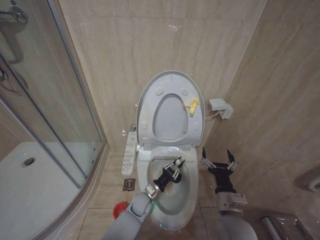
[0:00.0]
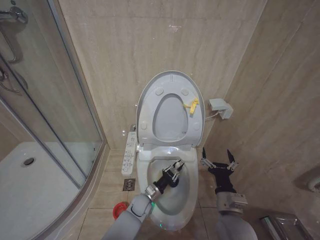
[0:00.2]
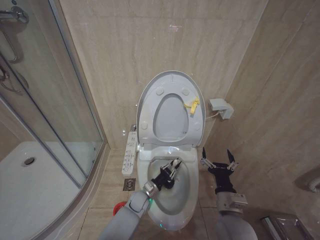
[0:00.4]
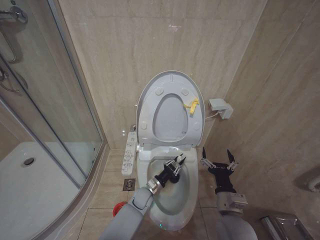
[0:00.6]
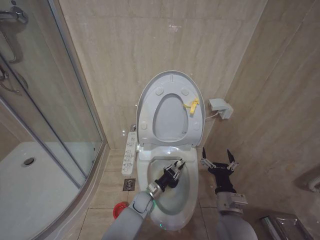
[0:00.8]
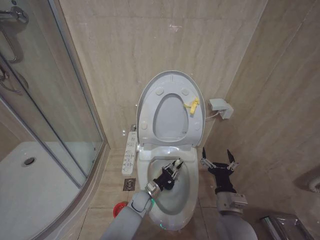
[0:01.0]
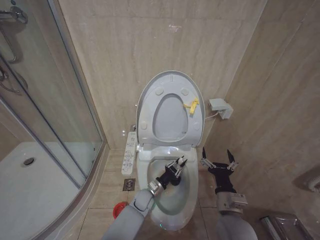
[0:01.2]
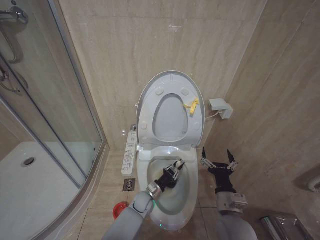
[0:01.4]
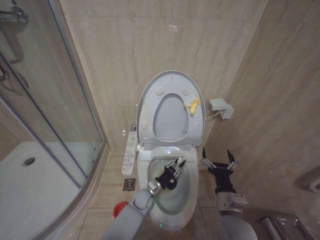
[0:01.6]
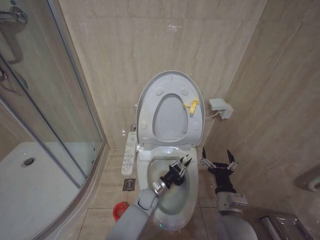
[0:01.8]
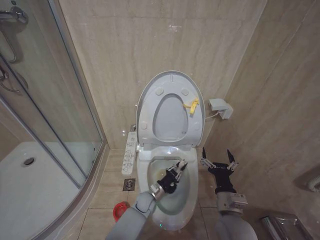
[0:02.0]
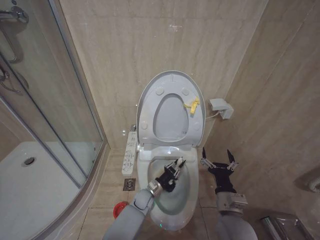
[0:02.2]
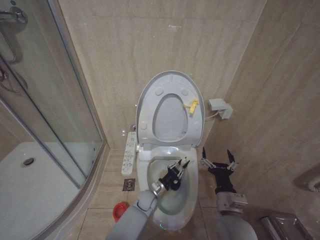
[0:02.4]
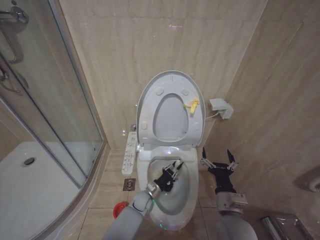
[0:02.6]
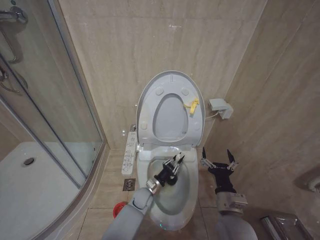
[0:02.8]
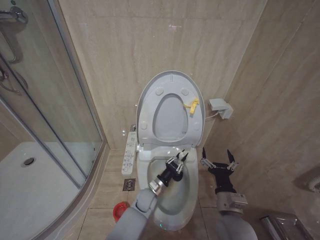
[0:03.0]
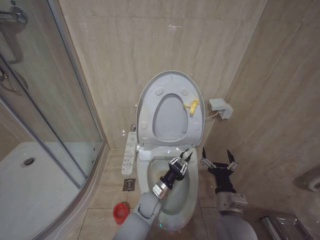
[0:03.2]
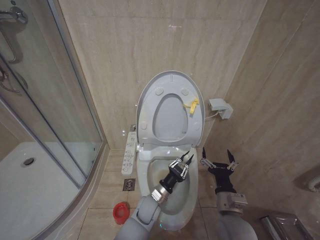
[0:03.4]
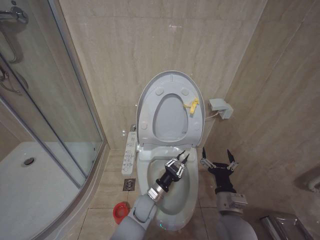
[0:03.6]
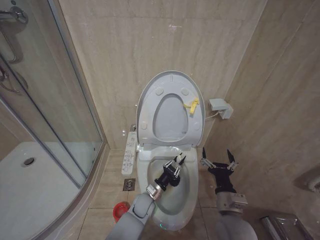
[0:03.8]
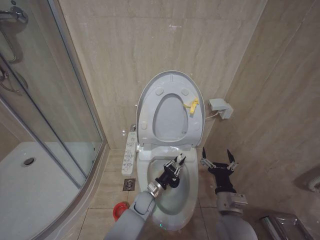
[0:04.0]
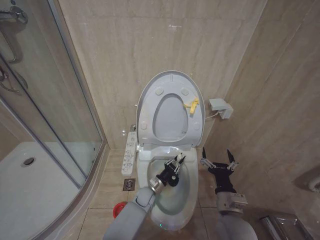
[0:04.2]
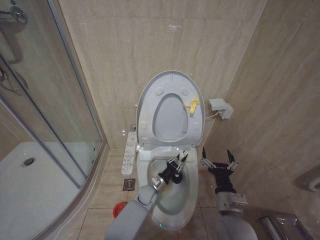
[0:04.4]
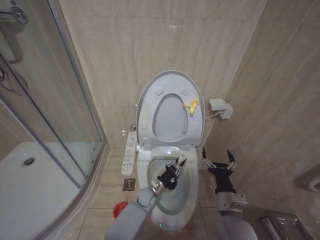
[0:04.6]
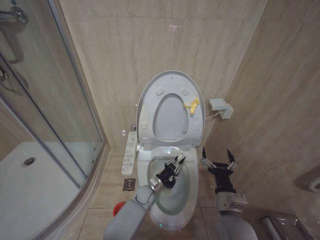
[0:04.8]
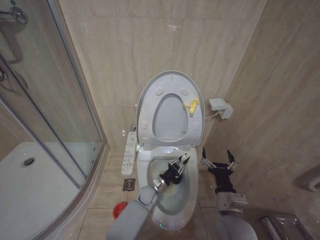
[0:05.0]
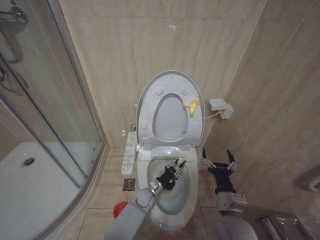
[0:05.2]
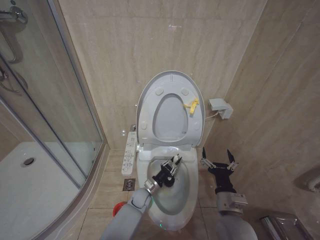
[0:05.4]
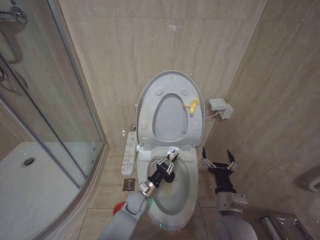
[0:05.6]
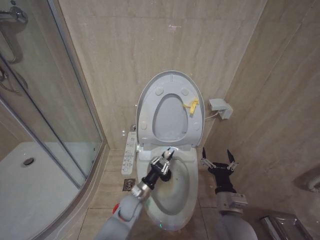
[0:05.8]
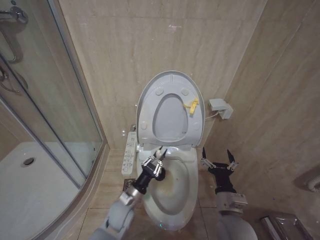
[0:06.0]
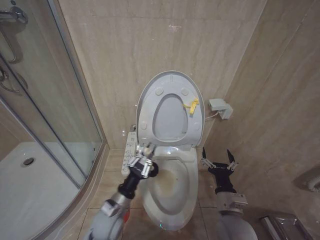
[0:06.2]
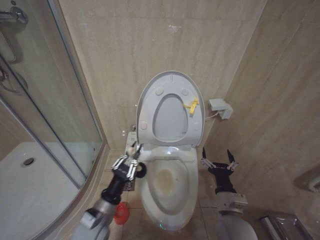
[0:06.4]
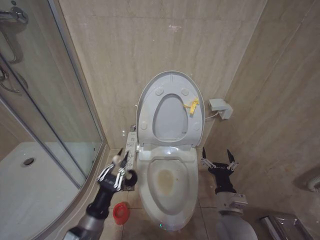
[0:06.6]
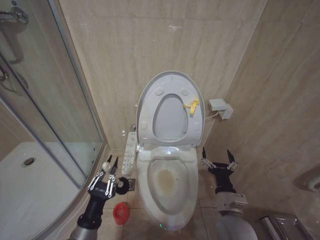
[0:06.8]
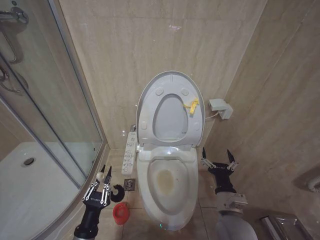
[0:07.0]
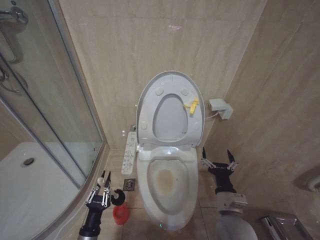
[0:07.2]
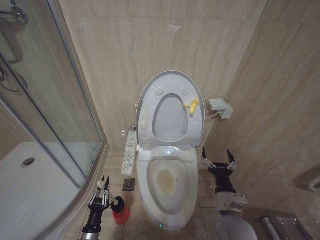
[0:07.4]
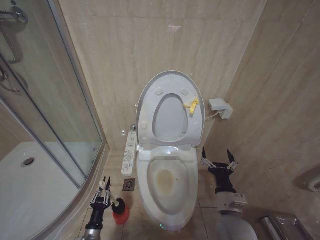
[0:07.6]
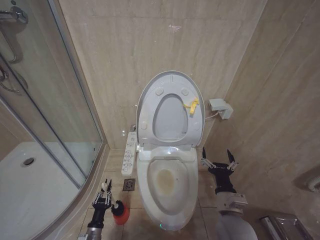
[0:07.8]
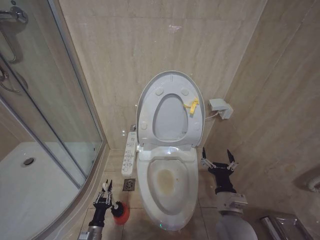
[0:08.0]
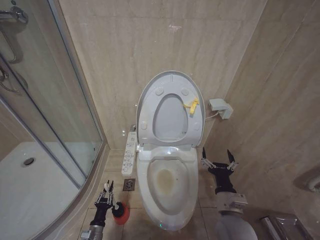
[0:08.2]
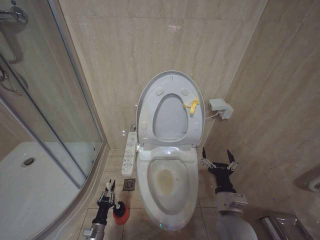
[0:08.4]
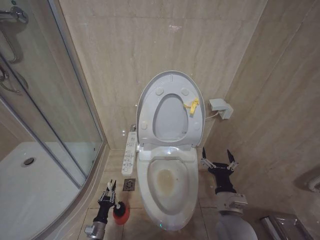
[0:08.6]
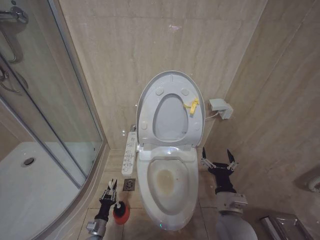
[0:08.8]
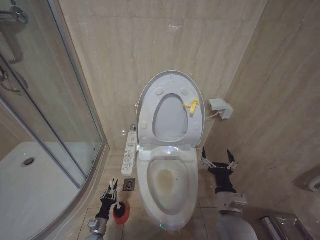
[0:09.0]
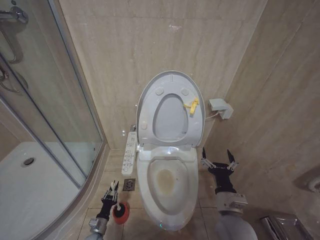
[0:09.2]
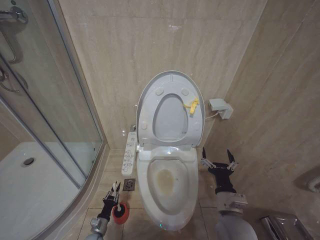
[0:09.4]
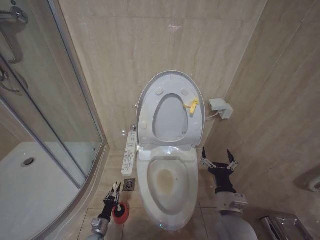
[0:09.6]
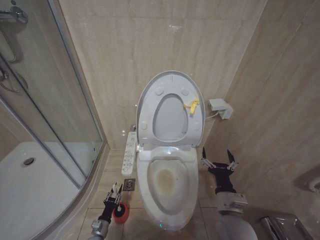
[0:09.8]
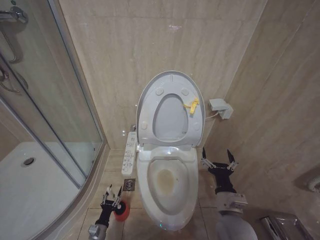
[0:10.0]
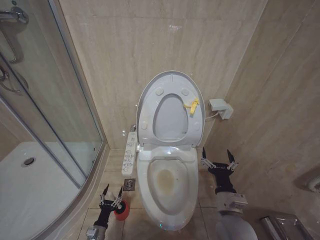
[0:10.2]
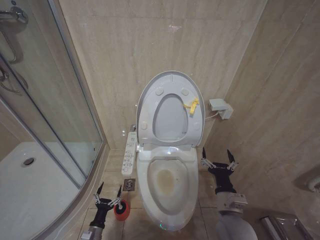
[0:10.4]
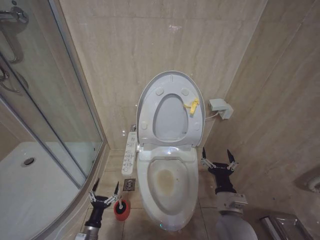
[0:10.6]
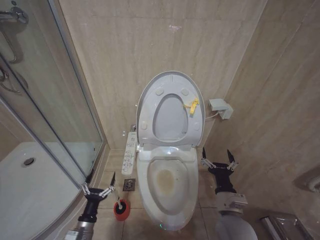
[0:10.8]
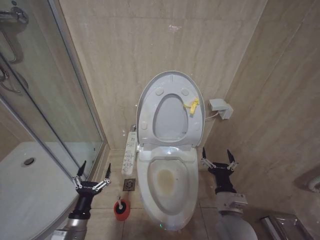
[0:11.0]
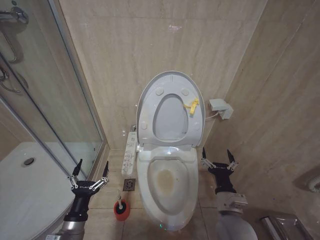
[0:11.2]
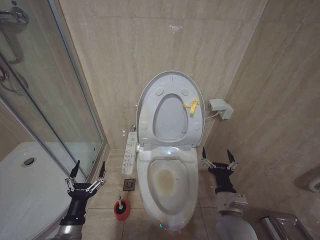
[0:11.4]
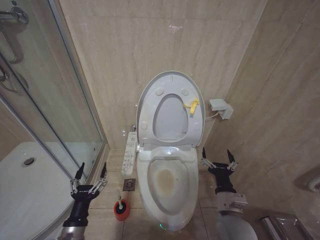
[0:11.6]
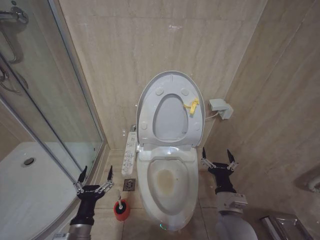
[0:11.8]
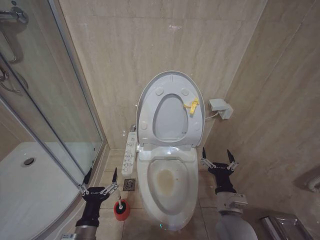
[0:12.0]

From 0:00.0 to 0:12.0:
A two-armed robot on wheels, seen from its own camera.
Task of the whole recording: Open the toilet lid, clean the toilet bowl with a toilet brush, close the toilet lid, and flush.
From 0:01.6 to 0:03.0: The left gripper moves some 5 cm.
From 0:04.4 to 0:06.0: The left gripper goes approximately 15 cm backward, to the left and upward.
From 0:06.0 to 0:07.6: The left gripper goes some 20 cm to the left, backward and downward.
From 0:07.6 to 0:09.0: The left gripper travels downward and forward by roughly 10 cm.
From 0:09.0 to 0:10.4: The left gripper opens.
From 0:10.4 to 0:12.0: The left gripper goes roughly 25 cm upward.

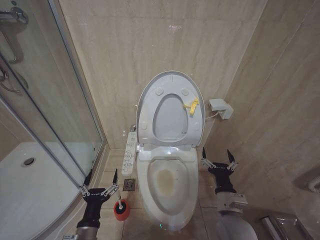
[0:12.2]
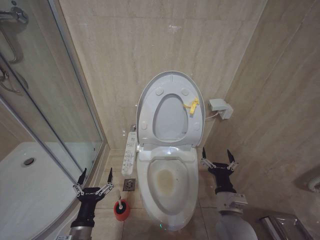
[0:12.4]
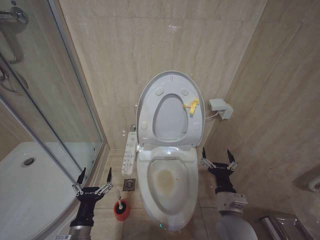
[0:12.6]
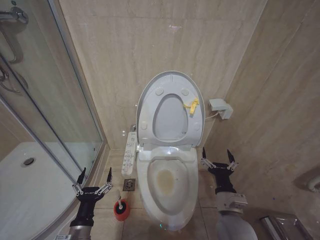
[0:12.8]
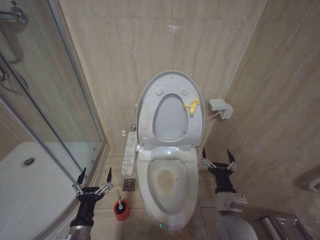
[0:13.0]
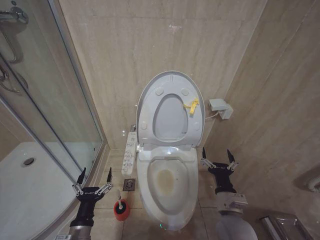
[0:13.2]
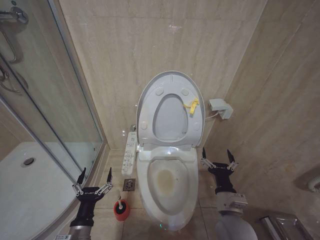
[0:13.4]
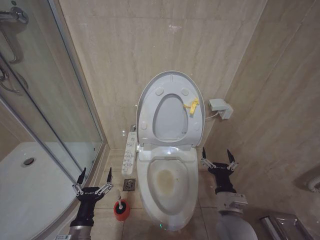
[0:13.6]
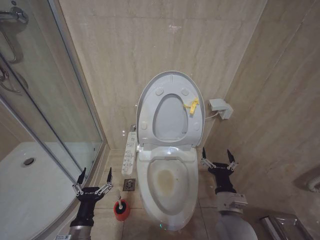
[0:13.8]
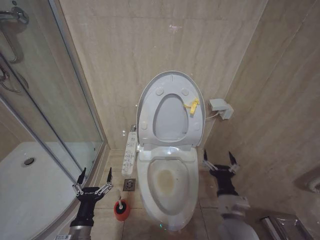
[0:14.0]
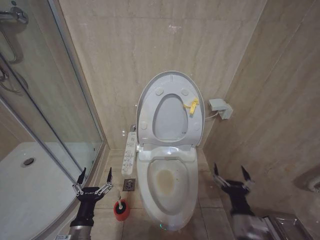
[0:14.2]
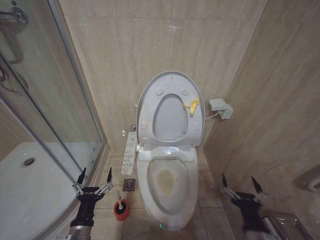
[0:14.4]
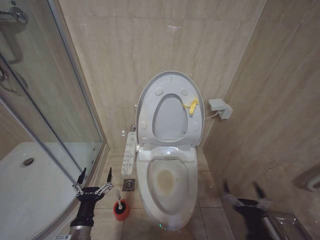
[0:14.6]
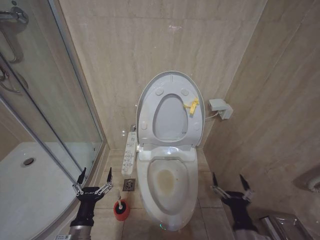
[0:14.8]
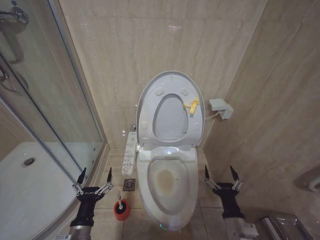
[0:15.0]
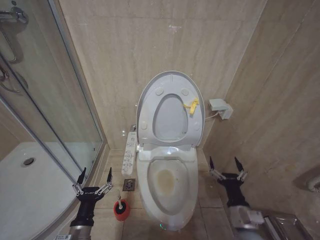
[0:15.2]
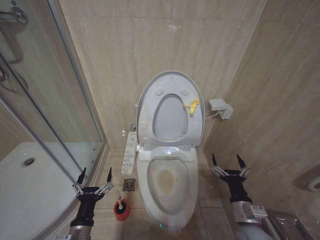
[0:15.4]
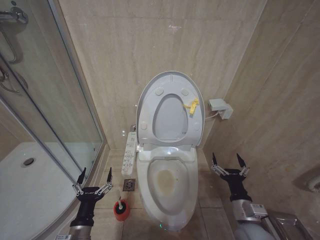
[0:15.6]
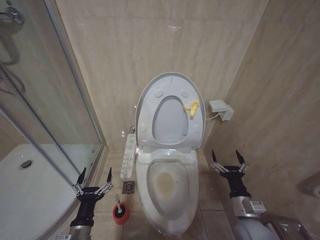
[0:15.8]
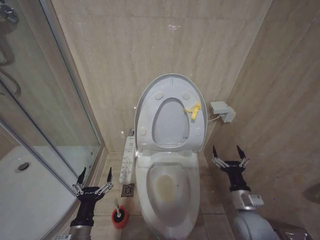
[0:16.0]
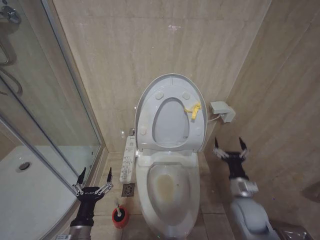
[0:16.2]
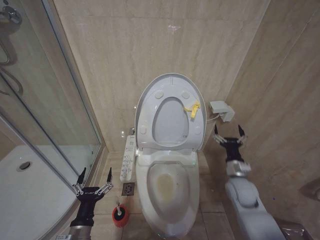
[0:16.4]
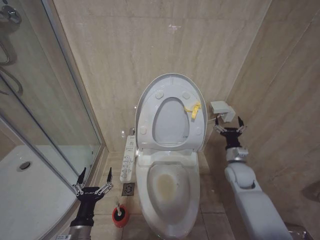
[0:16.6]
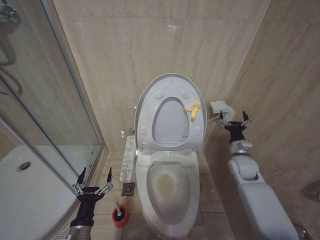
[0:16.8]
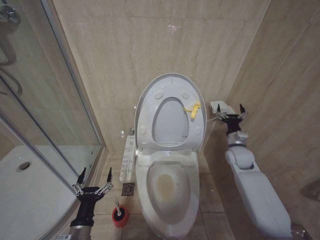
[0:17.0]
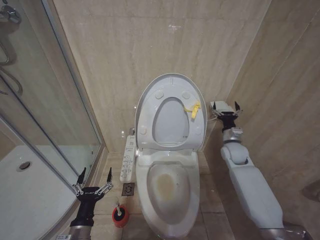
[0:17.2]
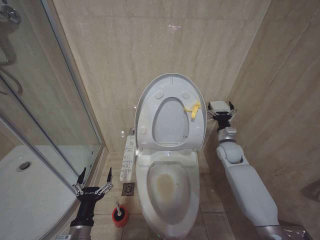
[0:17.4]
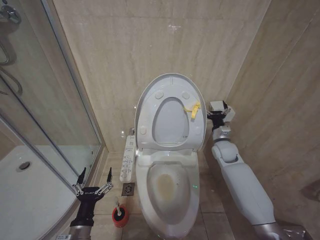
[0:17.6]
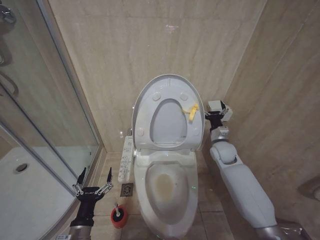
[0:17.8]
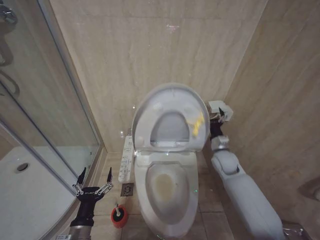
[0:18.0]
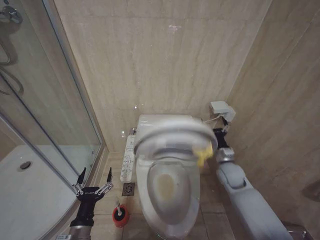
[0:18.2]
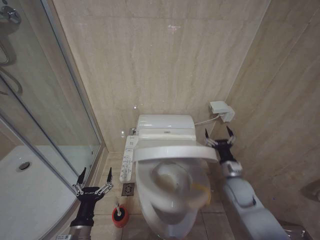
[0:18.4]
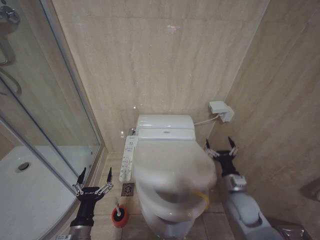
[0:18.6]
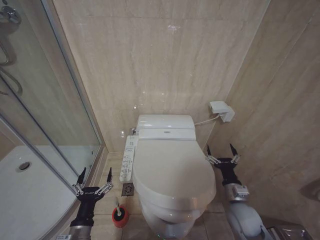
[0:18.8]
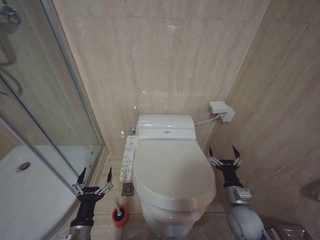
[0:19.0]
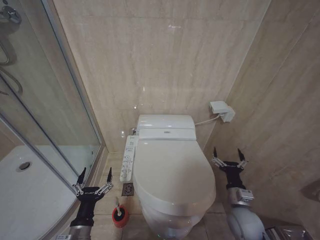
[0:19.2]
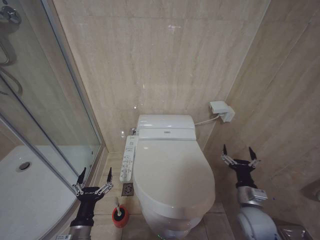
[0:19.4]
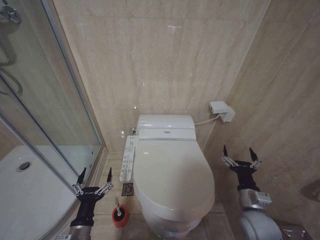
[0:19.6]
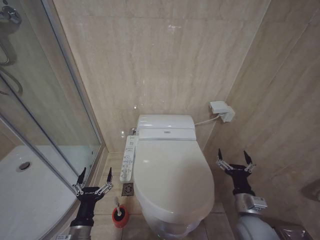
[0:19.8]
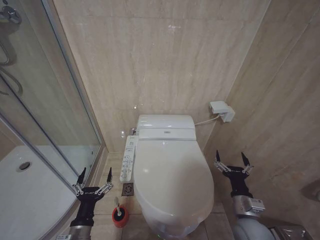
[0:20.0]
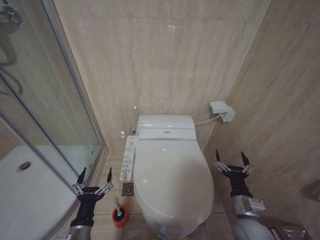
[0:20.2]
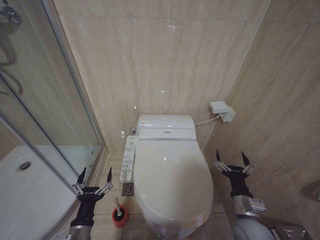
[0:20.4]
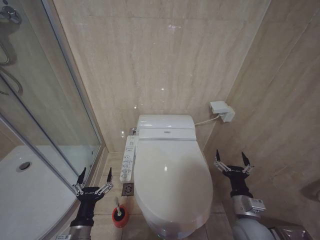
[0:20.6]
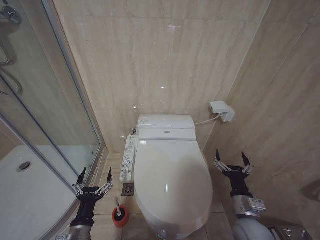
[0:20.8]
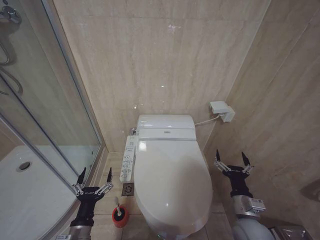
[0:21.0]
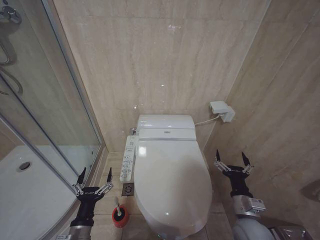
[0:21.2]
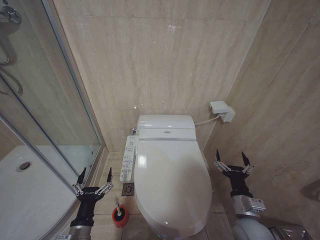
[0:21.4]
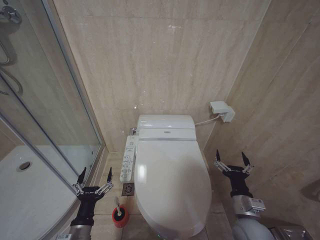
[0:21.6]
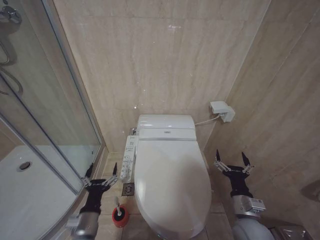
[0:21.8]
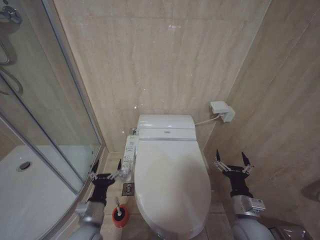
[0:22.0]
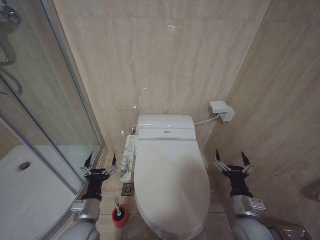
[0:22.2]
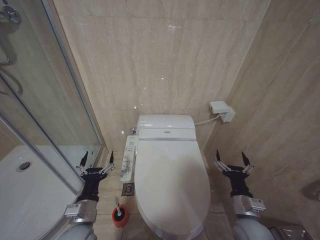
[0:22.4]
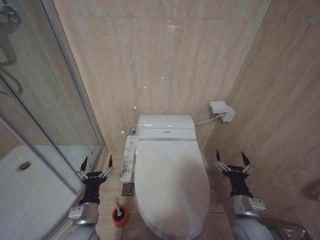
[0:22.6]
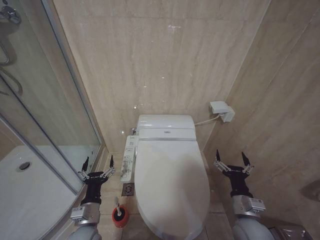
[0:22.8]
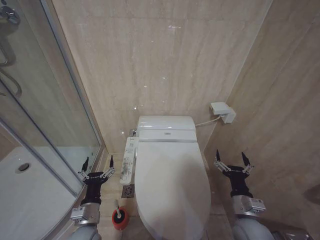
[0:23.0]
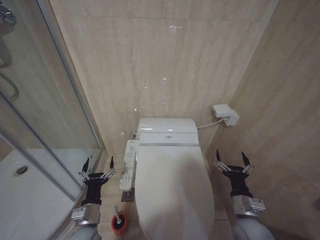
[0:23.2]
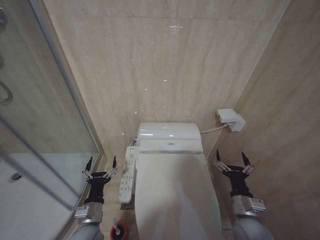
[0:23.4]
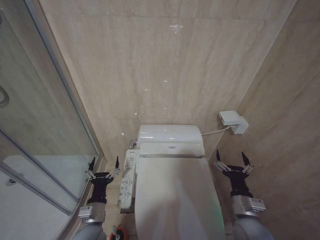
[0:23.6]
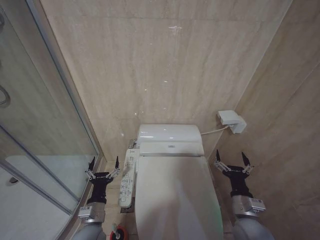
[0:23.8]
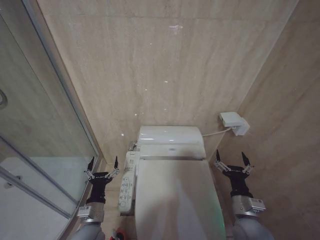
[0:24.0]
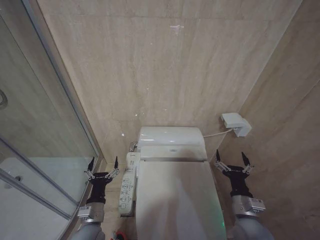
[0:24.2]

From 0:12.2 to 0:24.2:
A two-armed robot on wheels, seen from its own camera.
Task of the whole recording: Open the toilet lid, clean the toilet bowl with a toilet brush, close the toilet lid, and flush.
From 0:12.2 to 0:13.8: There are only small adjustments of the grippers.
From 0:15.2 to 0:16.6: The right gripper goes roughly 20 cm forward.
From 0:18.2 to 0:19.8: The right gripper moves backward, some 20 cm.
From 0:19.8 to 0:21.2: The grippers make only small movements.
From 0:21.2 to 0:22.6: The left gripper heads forward, covering about 5 cm.
From 0:22.6 to 0:24.2: The grippers make only small movements.
